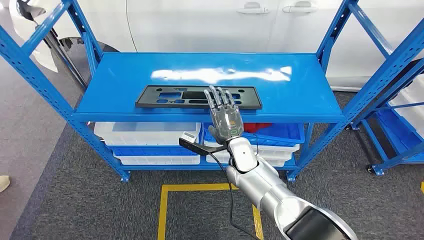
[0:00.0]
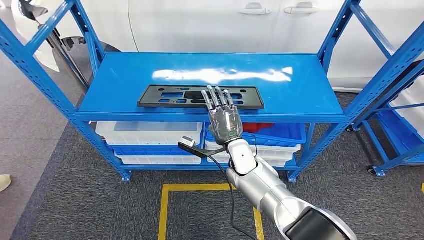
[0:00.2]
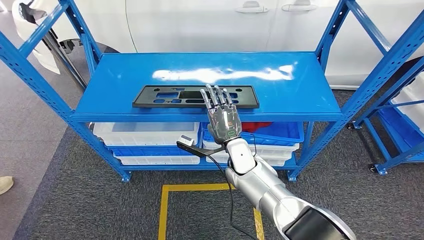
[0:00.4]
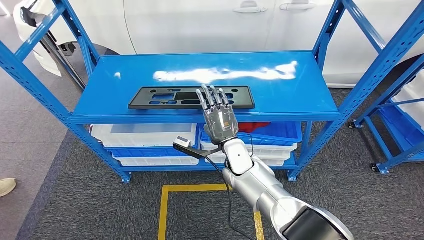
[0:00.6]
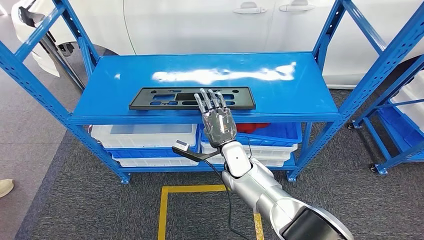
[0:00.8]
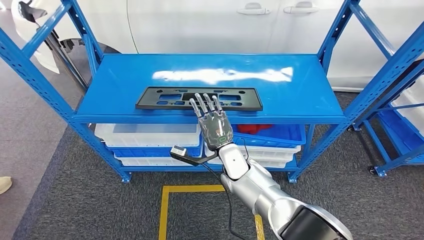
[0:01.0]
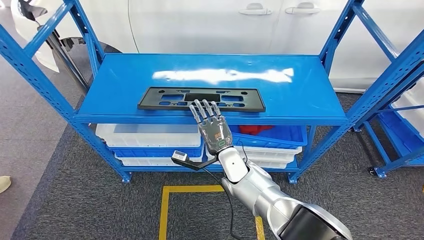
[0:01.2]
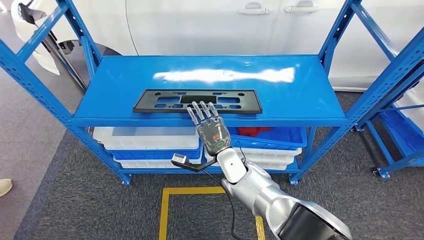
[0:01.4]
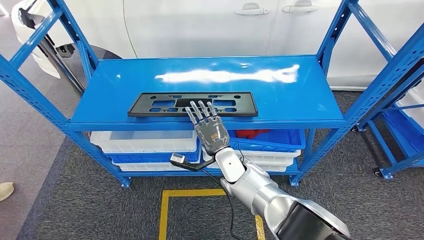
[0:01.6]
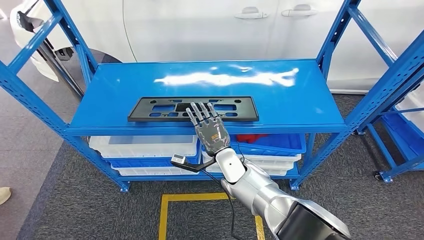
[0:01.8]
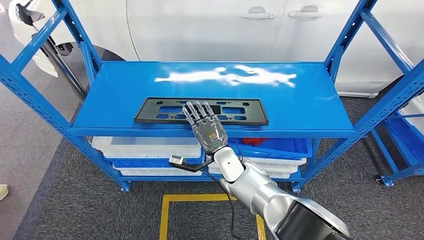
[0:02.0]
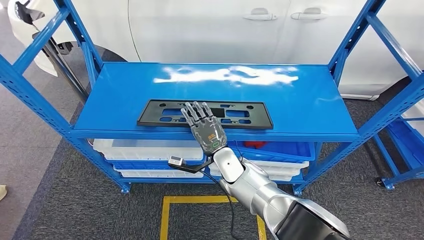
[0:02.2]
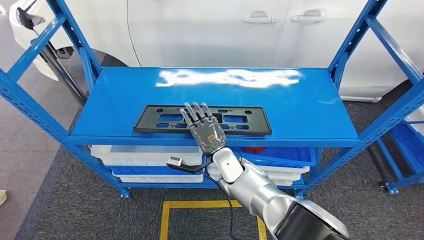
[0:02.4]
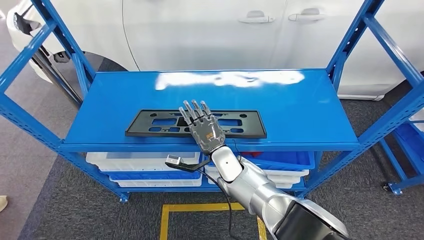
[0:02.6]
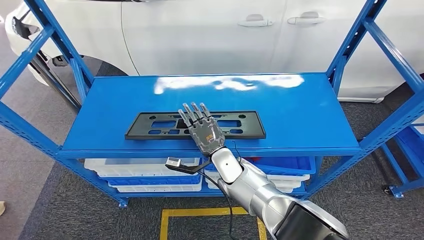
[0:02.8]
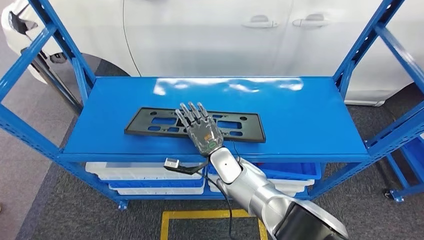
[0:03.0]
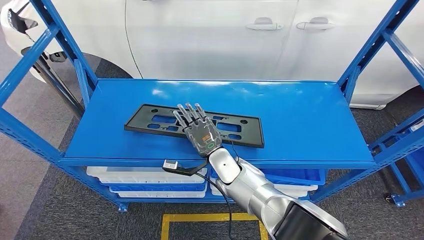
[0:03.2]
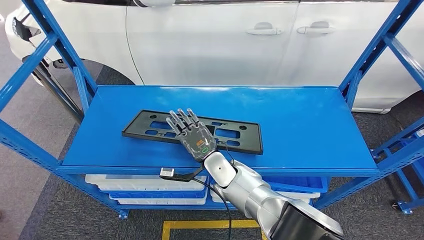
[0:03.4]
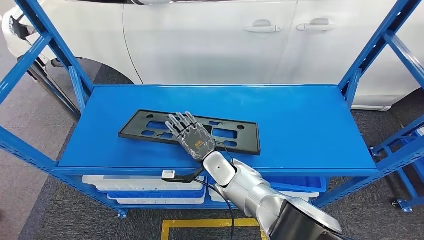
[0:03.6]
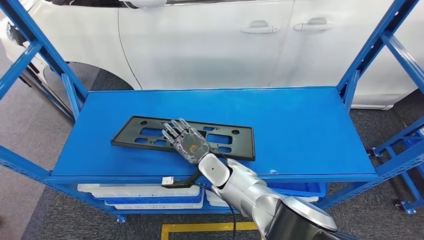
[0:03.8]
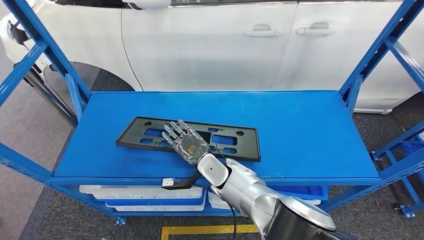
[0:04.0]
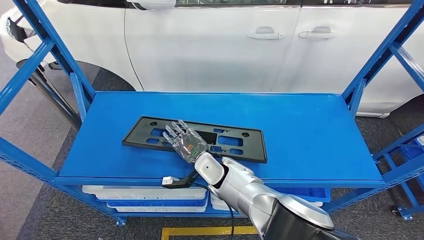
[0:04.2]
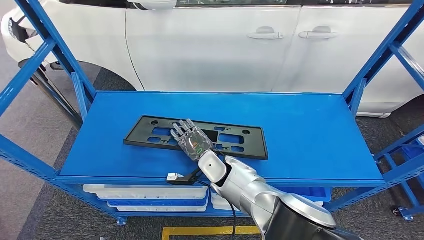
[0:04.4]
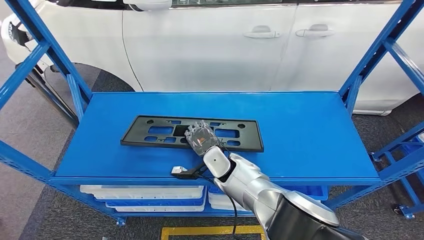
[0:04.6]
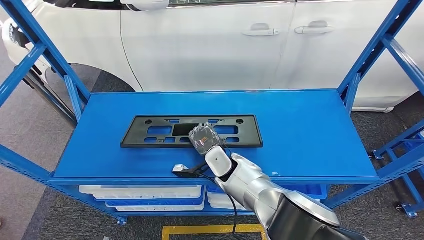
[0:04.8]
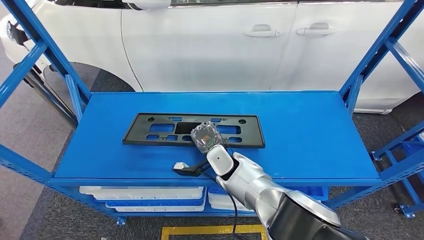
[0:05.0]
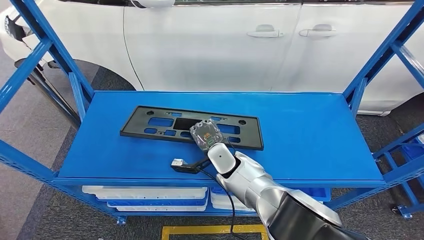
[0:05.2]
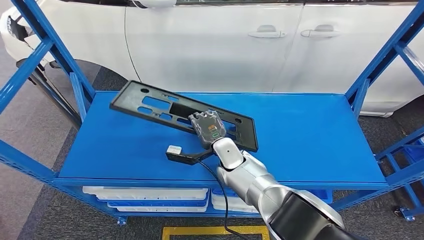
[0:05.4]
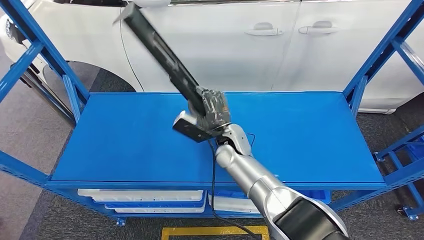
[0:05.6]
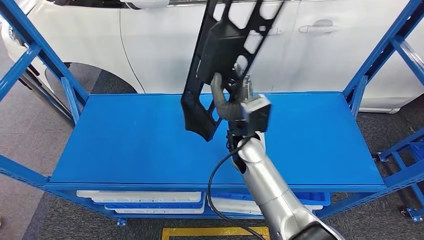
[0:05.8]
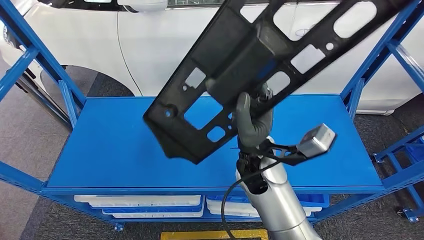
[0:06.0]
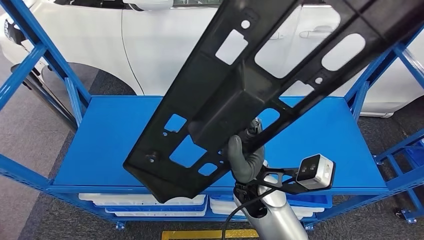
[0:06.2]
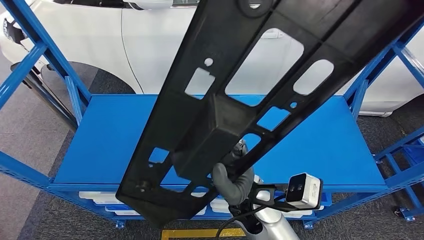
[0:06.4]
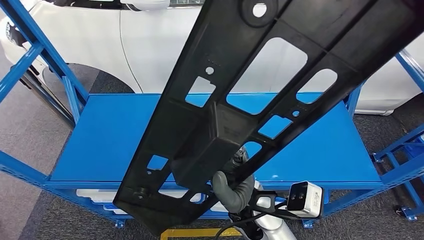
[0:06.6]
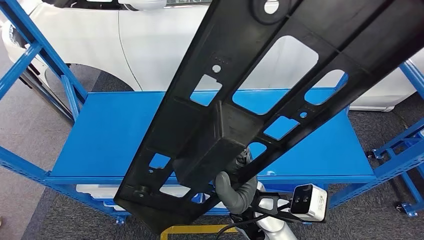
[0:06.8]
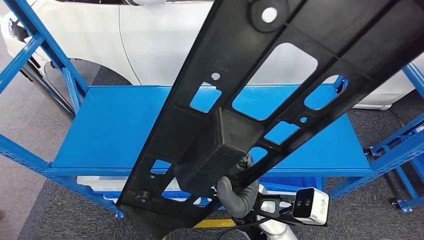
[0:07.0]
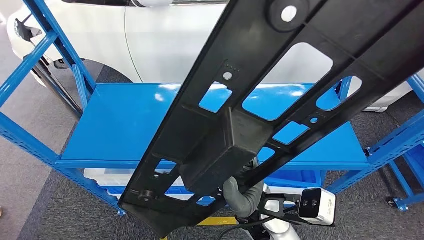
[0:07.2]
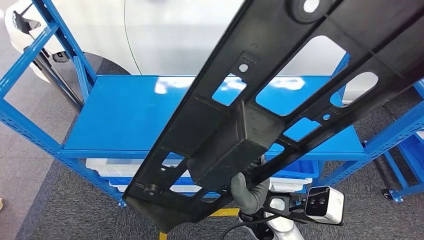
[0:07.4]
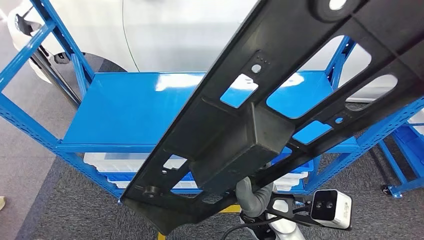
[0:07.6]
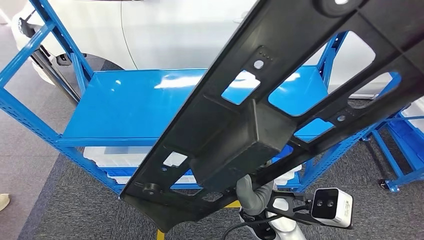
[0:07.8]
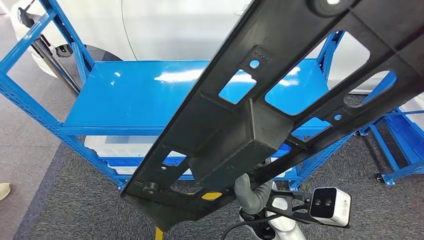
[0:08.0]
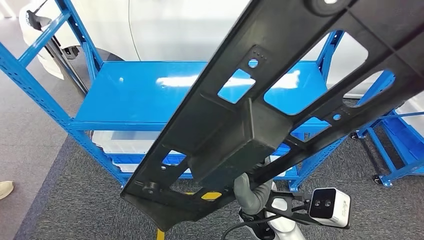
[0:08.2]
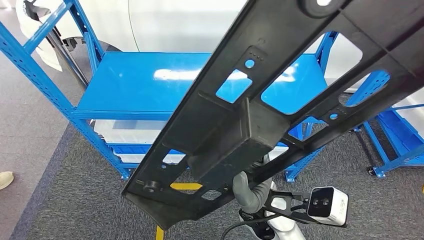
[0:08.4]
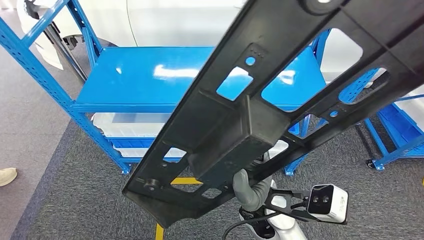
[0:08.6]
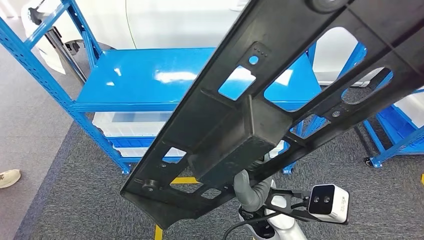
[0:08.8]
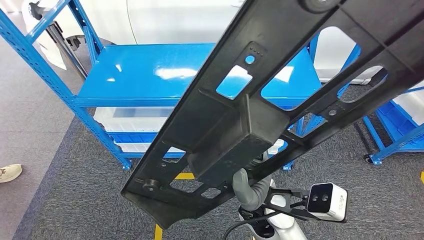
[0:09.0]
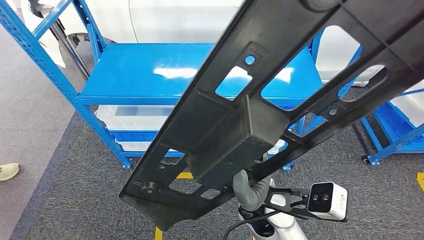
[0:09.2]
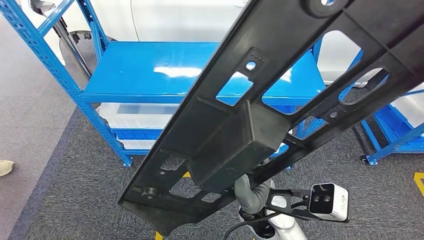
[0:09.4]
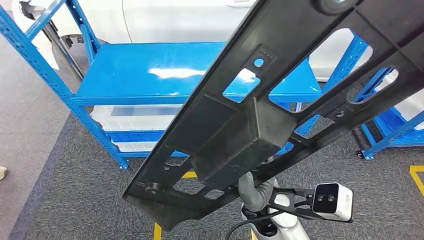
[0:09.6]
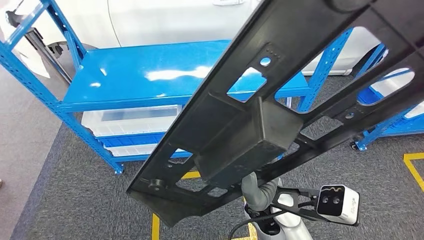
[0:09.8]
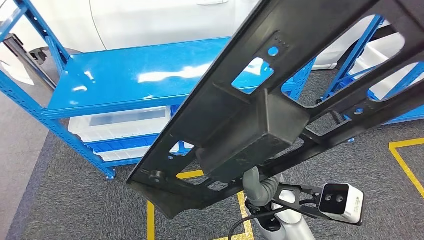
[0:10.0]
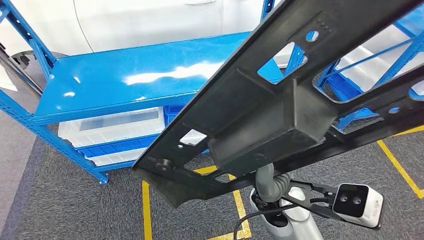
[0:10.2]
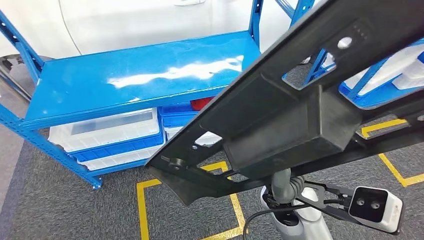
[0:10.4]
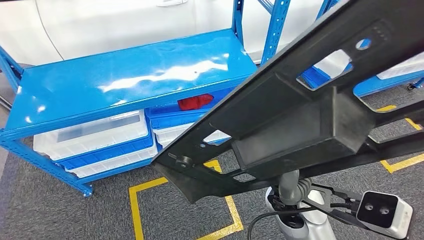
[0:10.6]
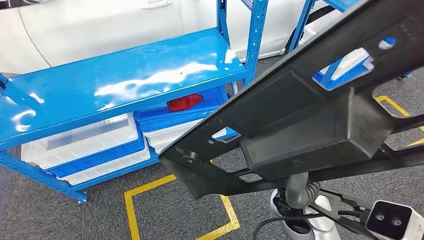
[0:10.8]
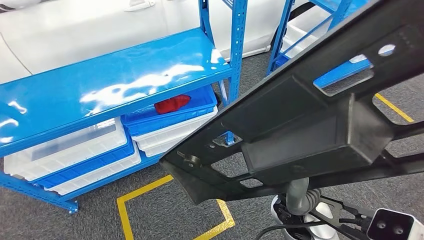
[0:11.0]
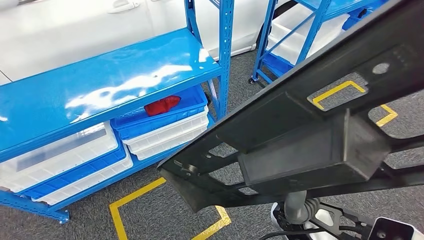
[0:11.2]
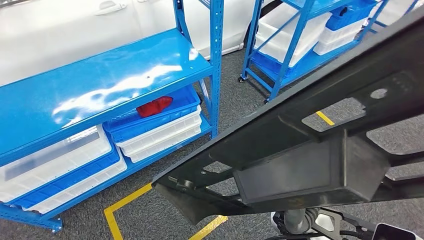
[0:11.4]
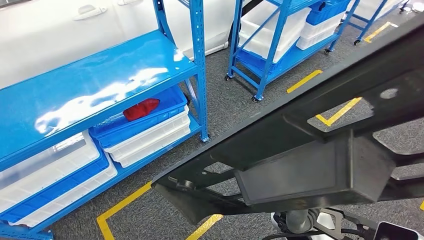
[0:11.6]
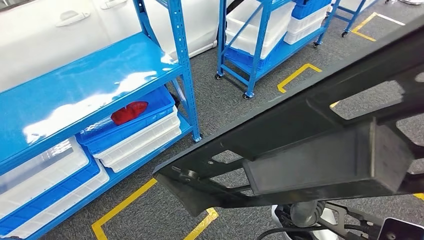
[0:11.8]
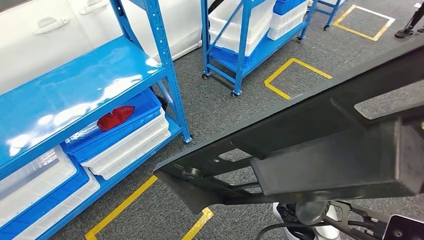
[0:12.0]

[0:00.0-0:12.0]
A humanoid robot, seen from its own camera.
Step, 0:00.0 to 0:07.0: Pick up the large material from the shelf.

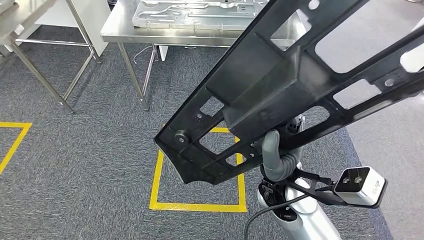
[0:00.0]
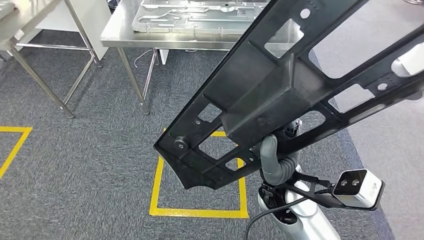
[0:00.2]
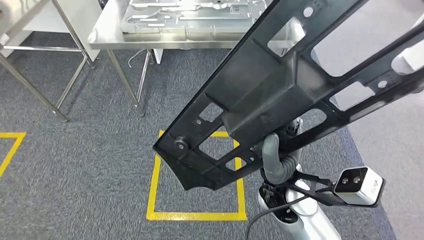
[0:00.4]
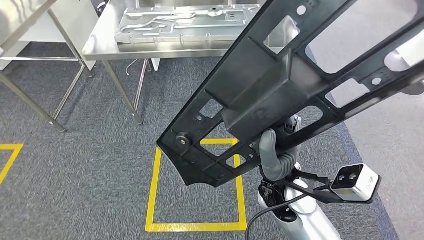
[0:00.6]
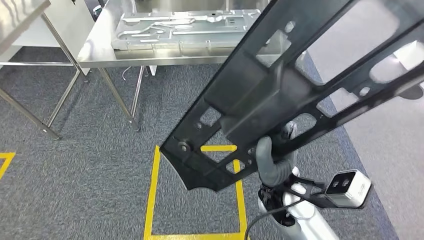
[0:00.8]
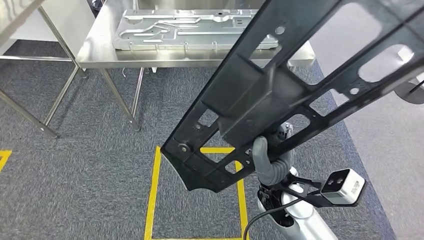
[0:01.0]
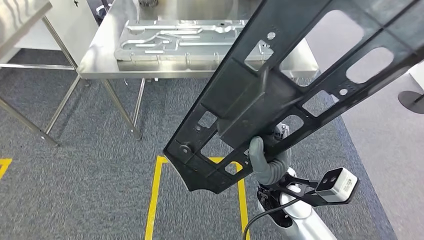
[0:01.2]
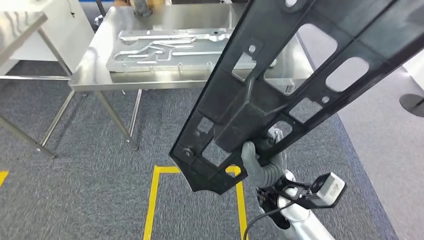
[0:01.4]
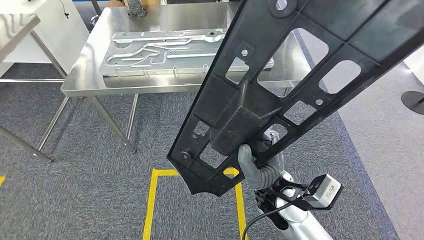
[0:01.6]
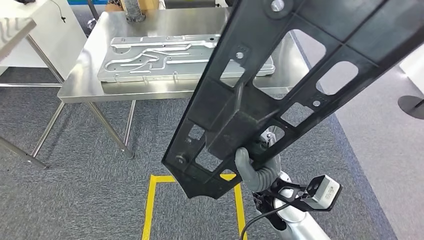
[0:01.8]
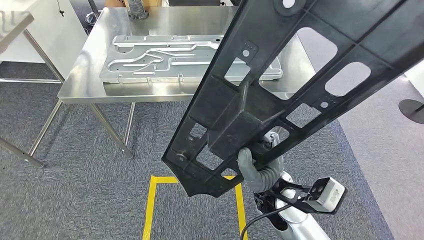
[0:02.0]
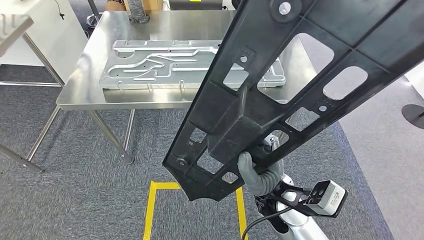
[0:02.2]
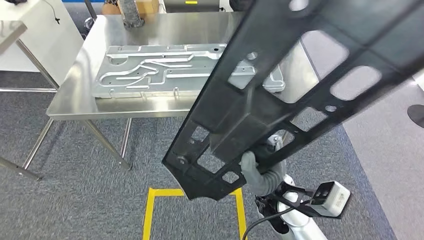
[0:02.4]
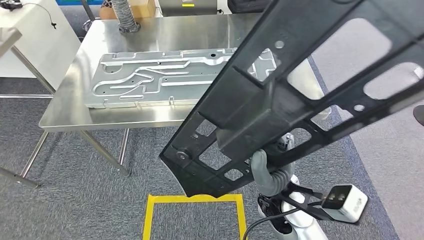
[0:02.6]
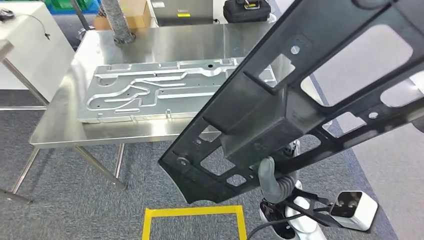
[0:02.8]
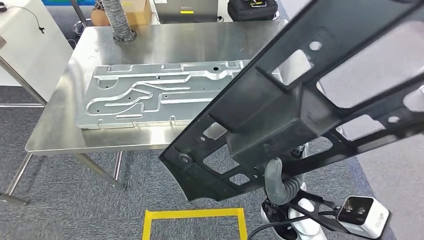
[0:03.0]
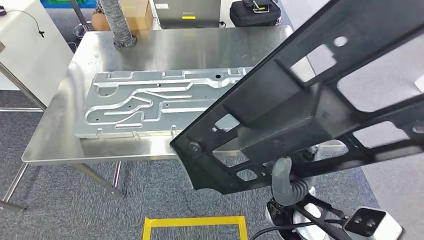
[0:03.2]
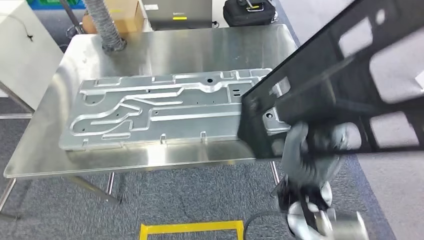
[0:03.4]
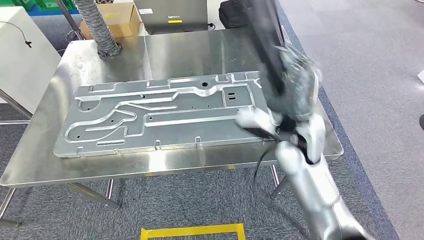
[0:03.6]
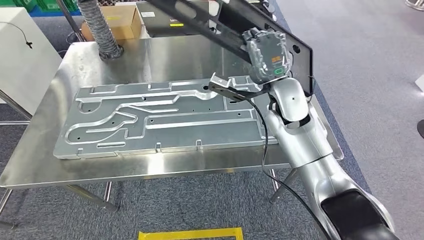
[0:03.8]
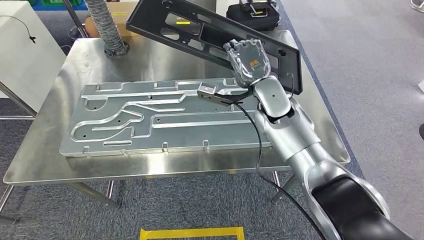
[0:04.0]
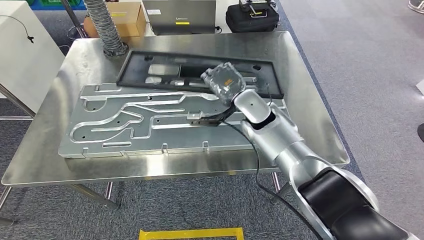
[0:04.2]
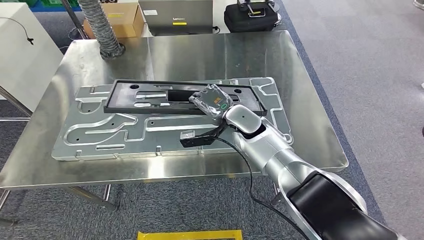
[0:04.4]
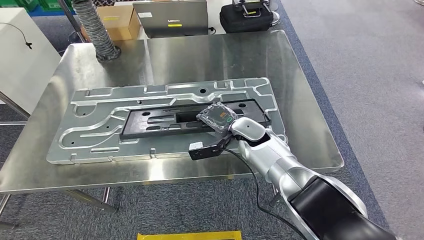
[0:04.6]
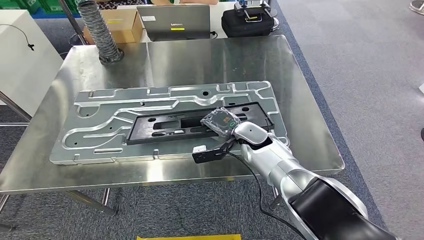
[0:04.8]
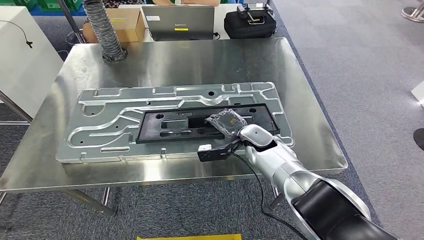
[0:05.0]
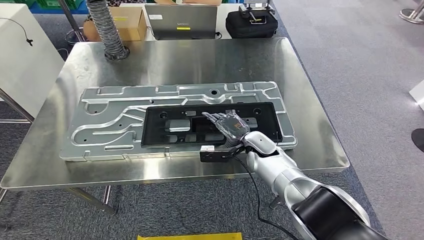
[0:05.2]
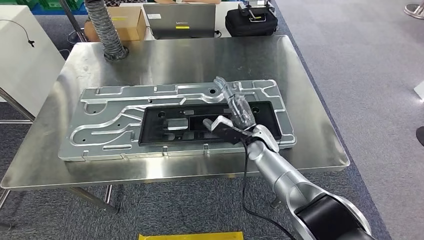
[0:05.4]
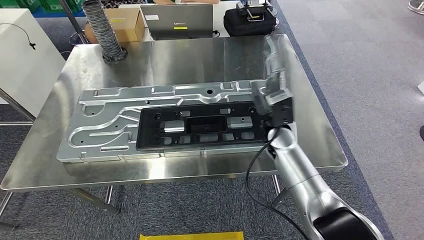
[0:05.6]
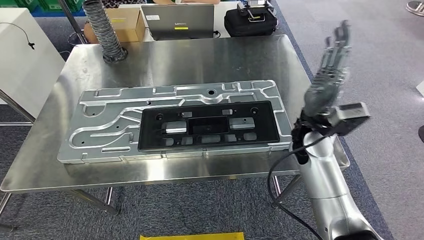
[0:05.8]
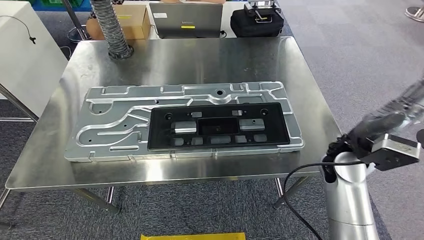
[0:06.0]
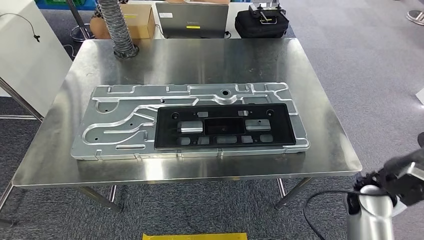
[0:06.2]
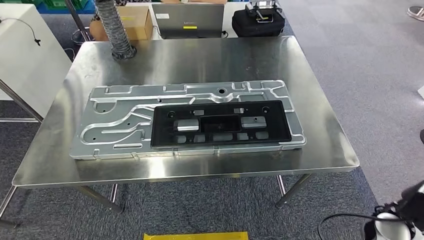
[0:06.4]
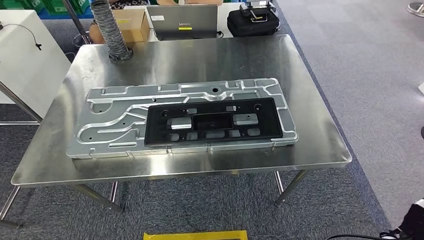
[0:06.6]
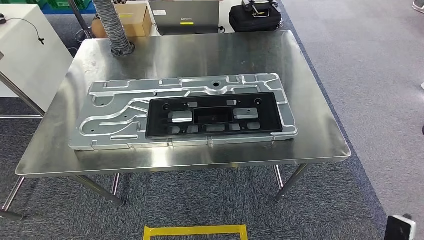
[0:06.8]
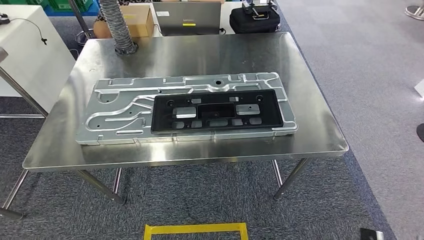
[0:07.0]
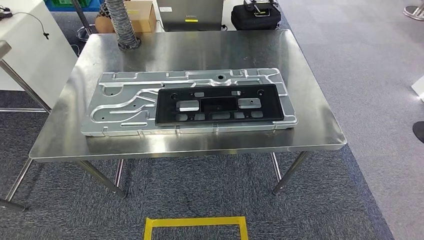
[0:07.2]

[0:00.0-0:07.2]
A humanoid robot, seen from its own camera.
Step, 0:00.0 to 0:04.6: Move the large material to the workbench.
Step, 0:05.0 to 0:06.8: Insert the large material into the corresponding slot on the workbench.
